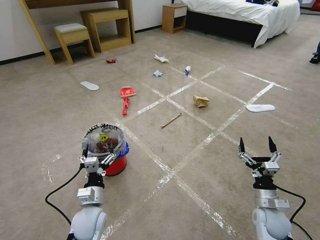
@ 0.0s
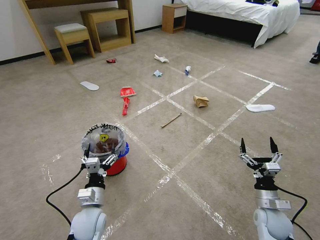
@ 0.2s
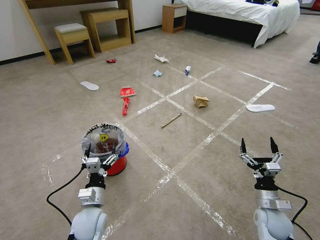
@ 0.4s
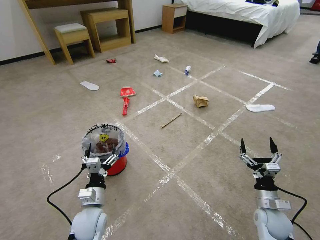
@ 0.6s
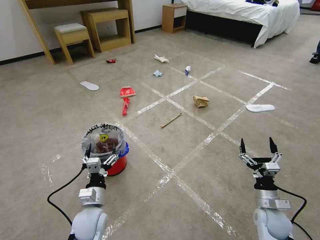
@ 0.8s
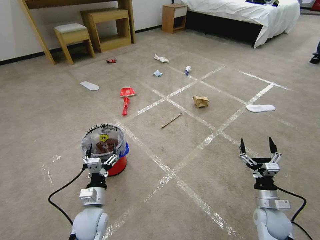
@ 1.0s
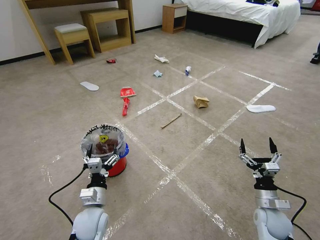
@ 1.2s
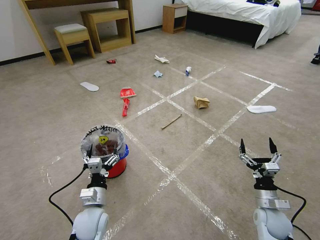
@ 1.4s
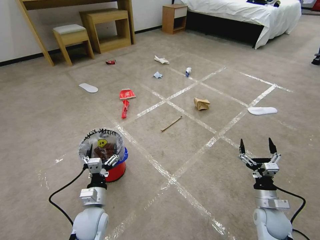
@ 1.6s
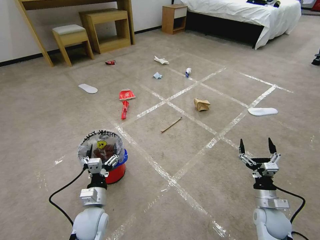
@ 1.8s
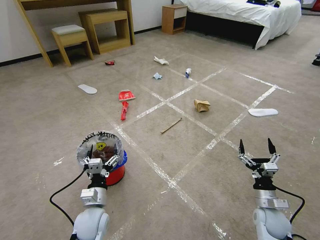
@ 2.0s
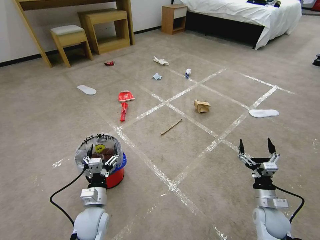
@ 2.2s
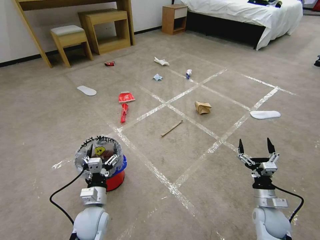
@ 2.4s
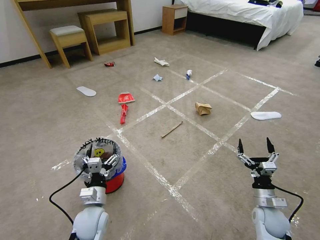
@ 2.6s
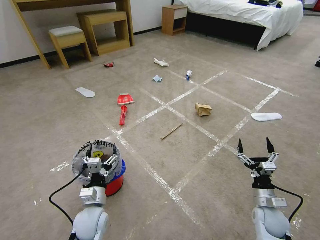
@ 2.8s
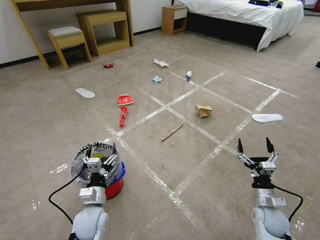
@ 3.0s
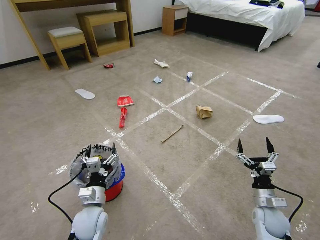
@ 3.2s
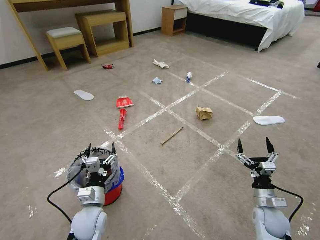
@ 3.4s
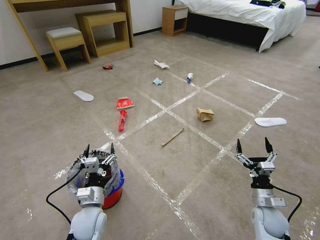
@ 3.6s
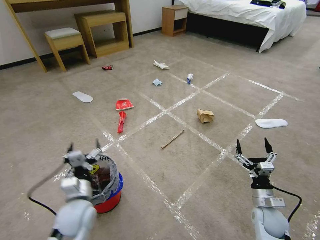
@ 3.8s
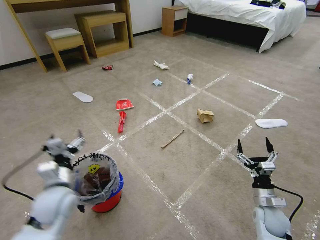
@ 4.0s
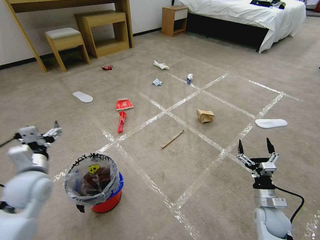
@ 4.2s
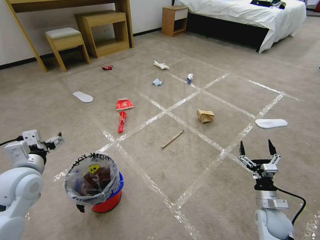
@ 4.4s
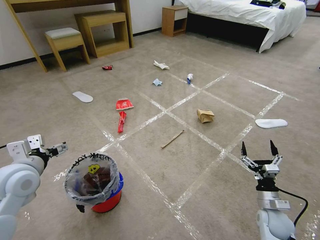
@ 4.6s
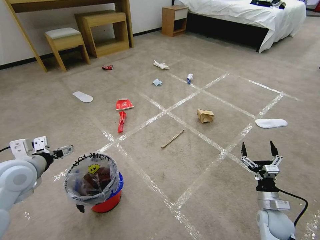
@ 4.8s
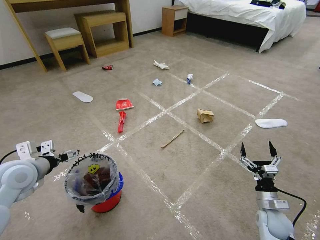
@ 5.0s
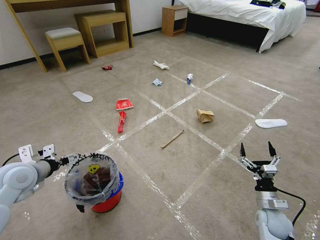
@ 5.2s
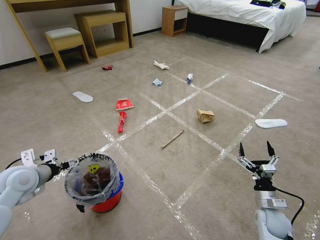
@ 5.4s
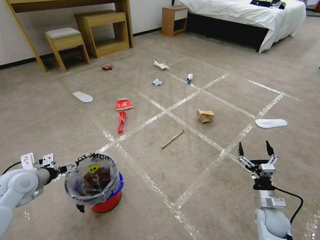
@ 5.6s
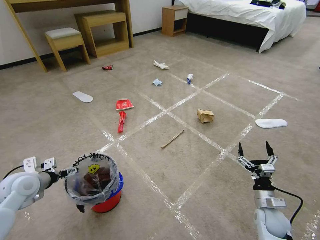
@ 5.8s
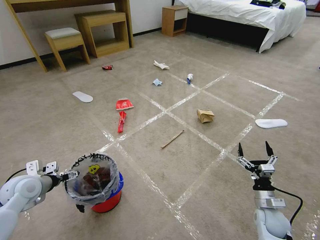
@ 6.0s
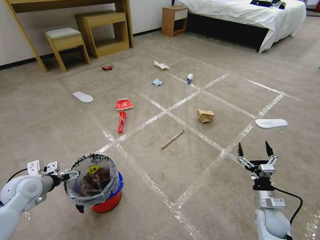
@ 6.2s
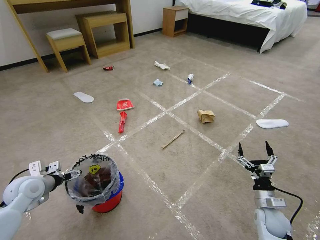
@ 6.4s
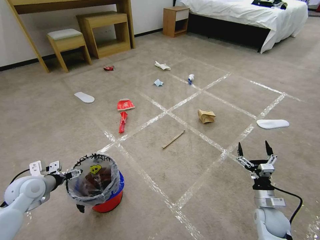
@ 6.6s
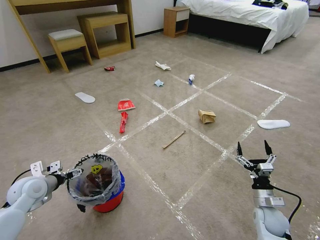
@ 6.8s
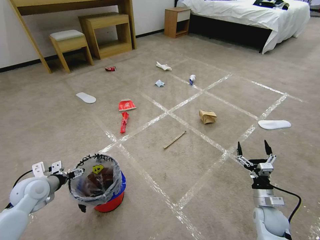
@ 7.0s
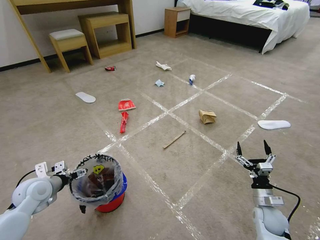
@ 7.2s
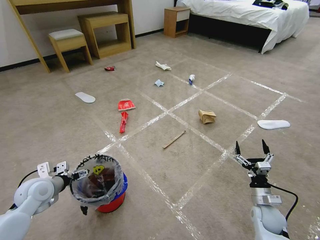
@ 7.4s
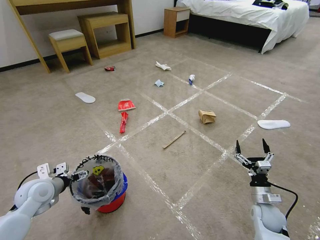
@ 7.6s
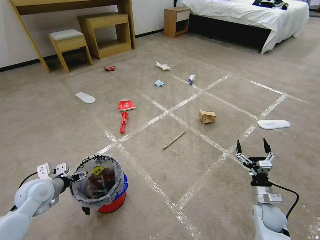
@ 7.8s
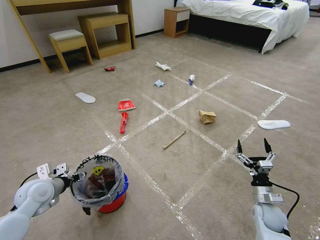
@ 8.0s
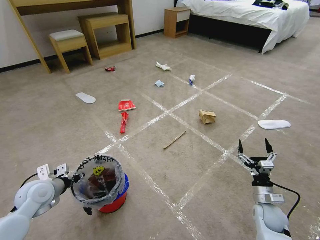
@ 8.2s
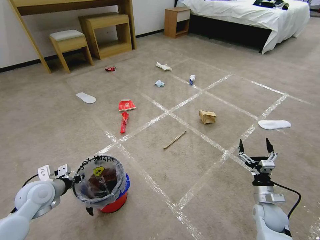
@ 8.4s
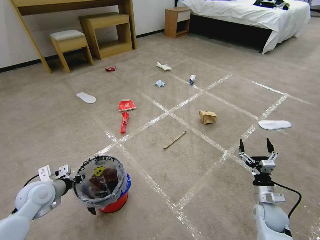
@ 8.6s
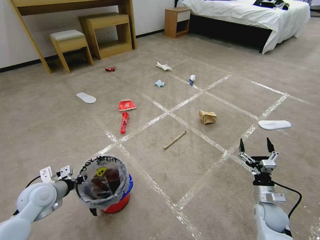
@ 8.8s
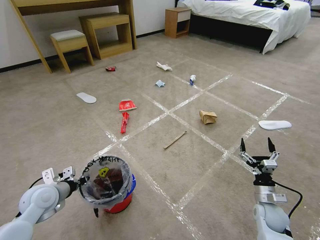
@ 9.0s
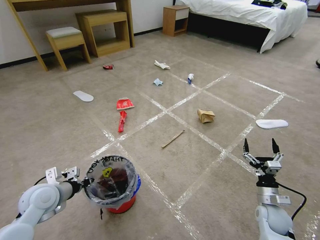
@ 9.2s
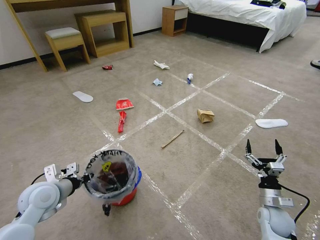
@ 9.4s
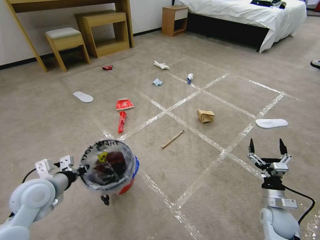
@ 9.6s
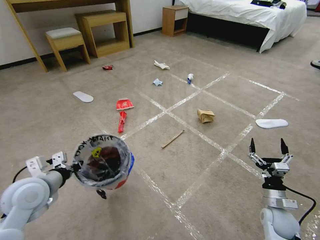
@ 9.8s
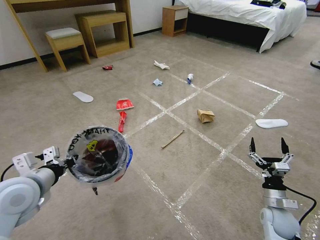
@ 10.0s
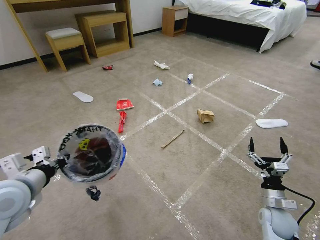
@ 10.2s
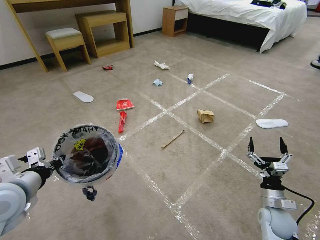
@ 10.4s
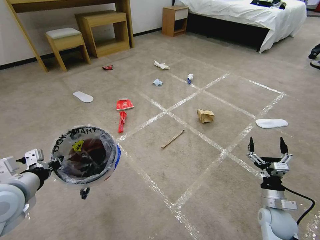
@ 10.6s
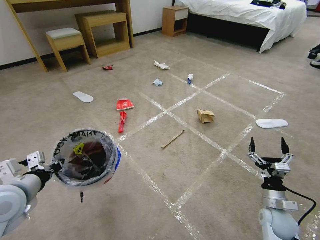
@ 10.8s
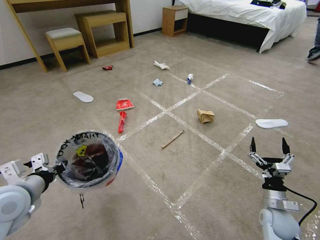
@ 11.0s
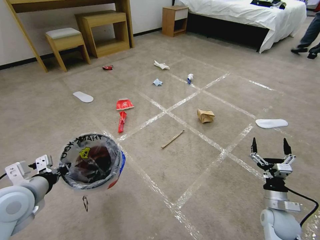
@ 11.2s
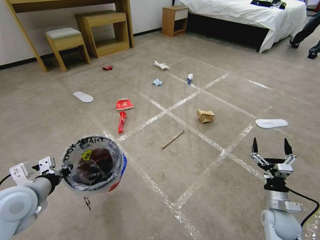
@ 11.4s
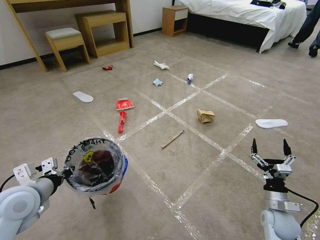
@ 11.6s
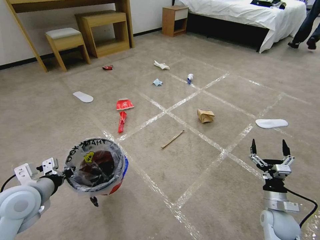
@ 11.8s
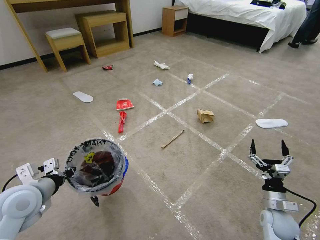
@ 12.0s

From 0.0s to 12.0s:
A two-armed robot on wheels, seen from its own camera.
Task of the whole recording: Pick up the trash bin and place the garbage on the floor into it.
From 1.6s to 3.0s: The two grippers keep their place.
From 3.0s to 4.4s: The left gripper heads upward and to the left, covering roughly 25 cm.
From 4.4s to 6.0s: The left gripper moves downward and to the left, some 10 cm.
From 6.0s to 7.6s: The grippers move only a little.
From 7.6s to 9.0s: The left gripper closes.
From 9.0s to 10.4s: The left gripper is displaced upward and backward by roughly 15 cm.
From 10.4s to 12.0s: The left gripper moves about 5 cm.

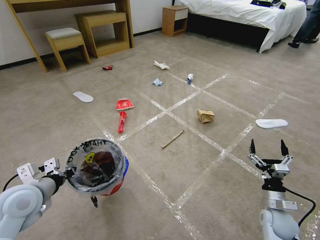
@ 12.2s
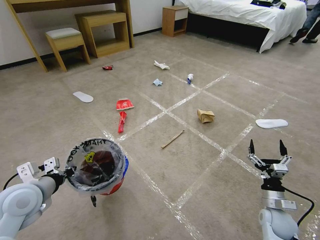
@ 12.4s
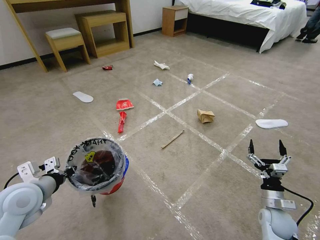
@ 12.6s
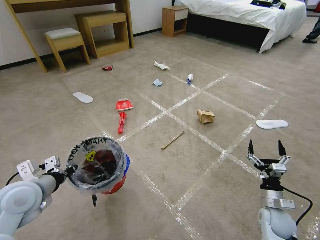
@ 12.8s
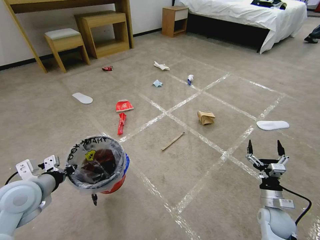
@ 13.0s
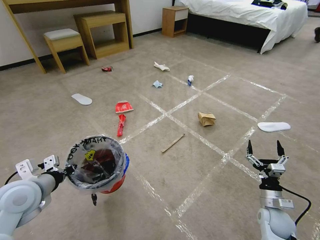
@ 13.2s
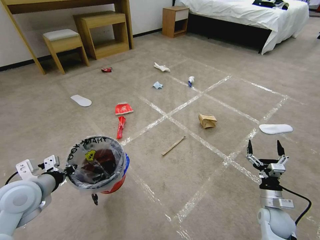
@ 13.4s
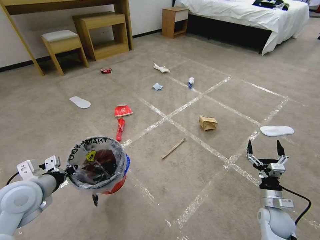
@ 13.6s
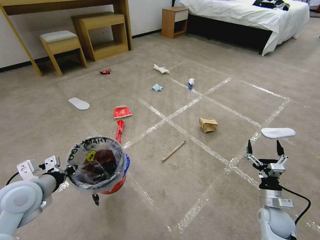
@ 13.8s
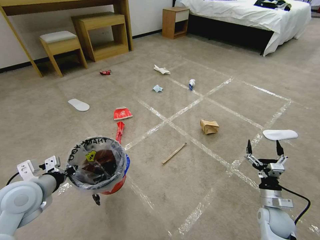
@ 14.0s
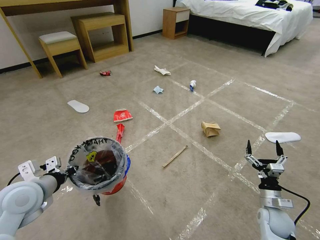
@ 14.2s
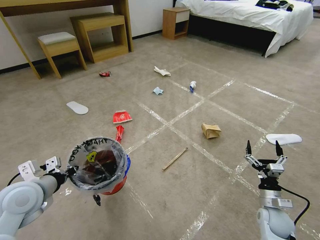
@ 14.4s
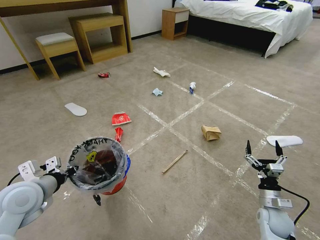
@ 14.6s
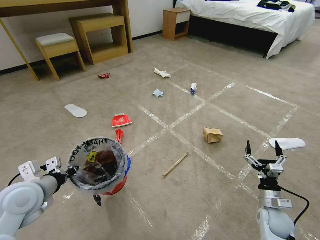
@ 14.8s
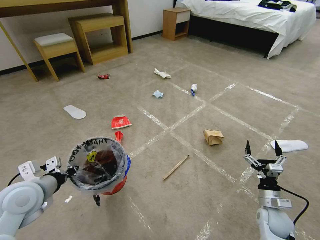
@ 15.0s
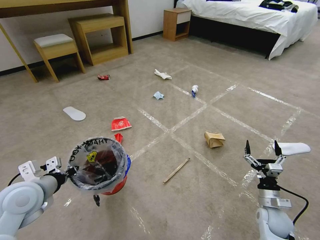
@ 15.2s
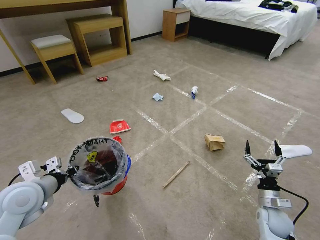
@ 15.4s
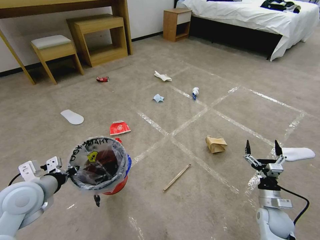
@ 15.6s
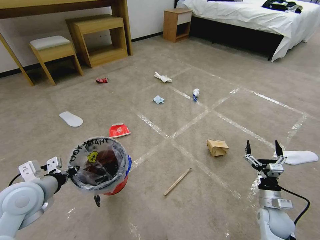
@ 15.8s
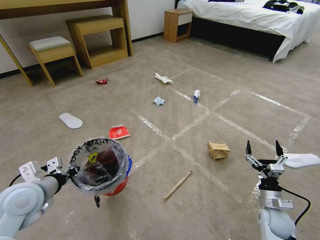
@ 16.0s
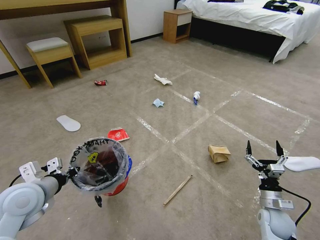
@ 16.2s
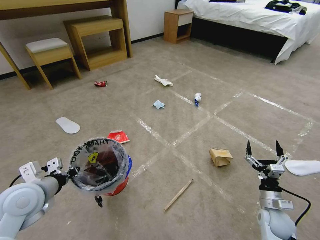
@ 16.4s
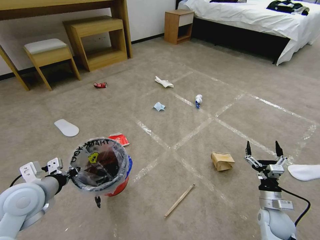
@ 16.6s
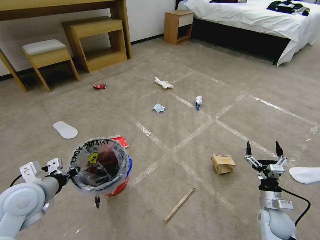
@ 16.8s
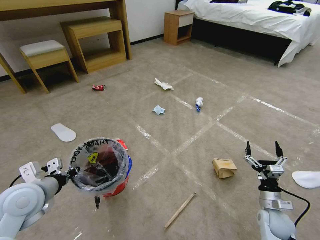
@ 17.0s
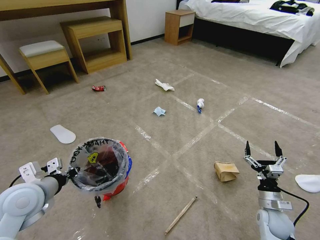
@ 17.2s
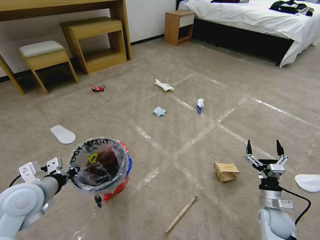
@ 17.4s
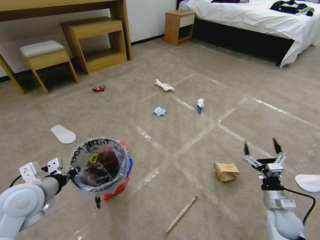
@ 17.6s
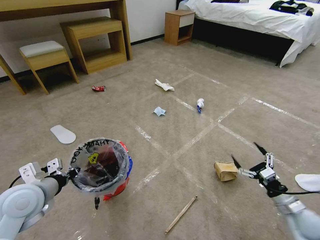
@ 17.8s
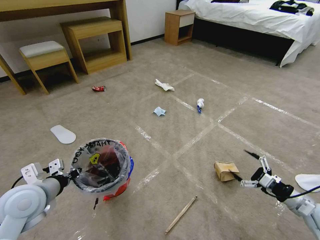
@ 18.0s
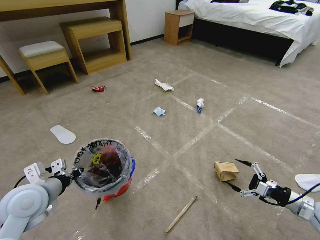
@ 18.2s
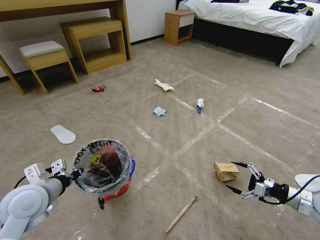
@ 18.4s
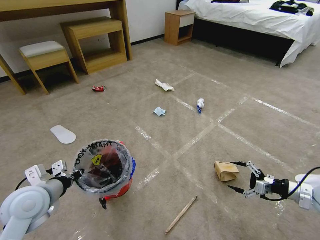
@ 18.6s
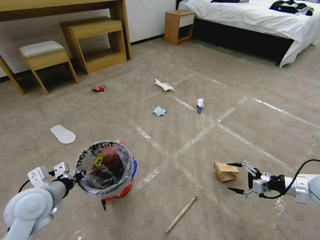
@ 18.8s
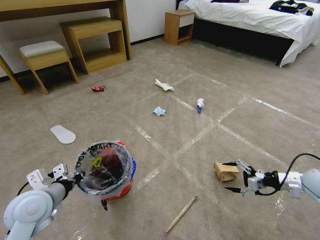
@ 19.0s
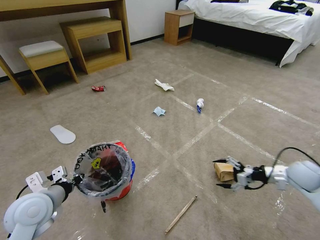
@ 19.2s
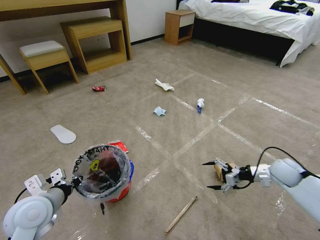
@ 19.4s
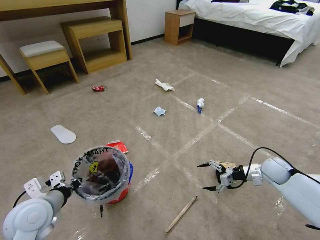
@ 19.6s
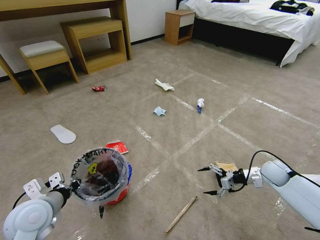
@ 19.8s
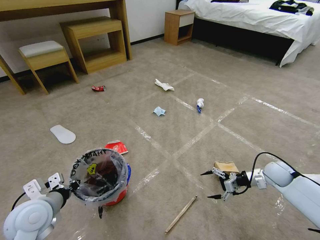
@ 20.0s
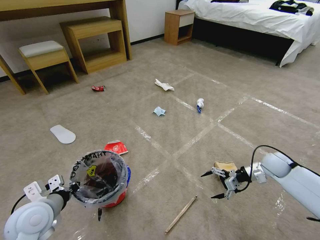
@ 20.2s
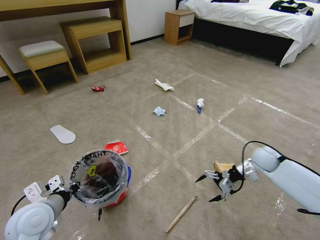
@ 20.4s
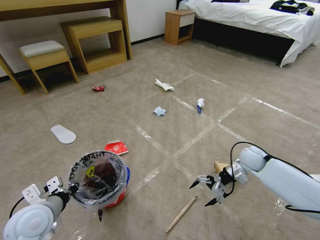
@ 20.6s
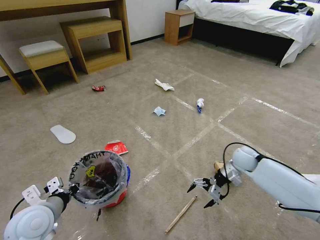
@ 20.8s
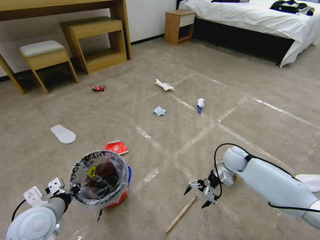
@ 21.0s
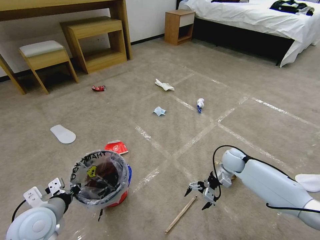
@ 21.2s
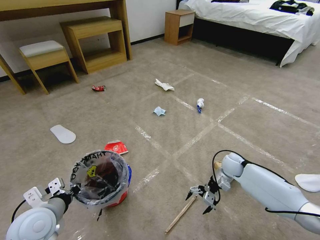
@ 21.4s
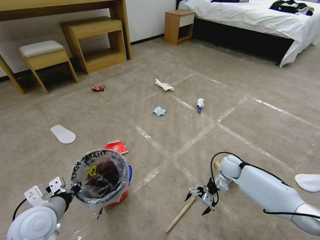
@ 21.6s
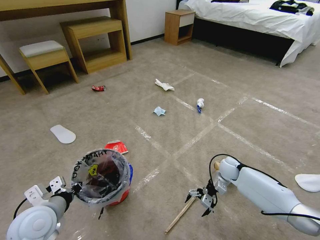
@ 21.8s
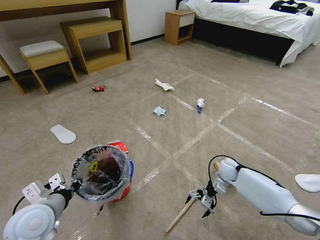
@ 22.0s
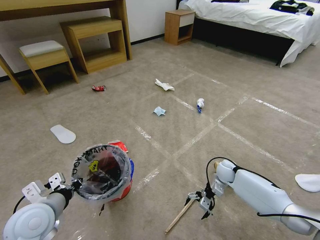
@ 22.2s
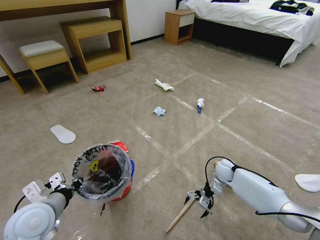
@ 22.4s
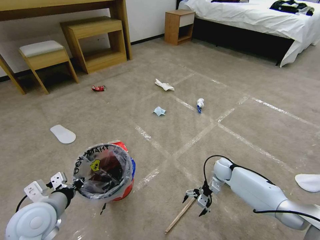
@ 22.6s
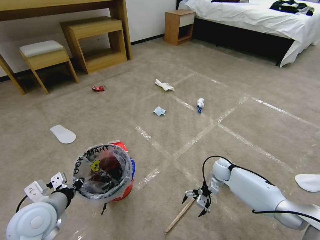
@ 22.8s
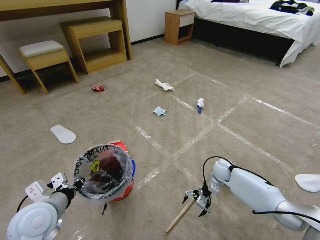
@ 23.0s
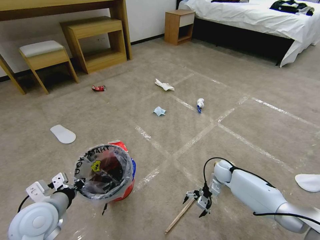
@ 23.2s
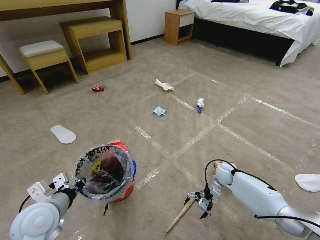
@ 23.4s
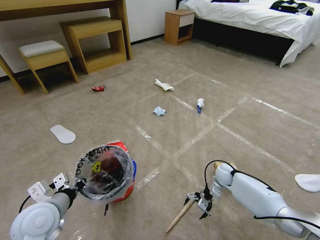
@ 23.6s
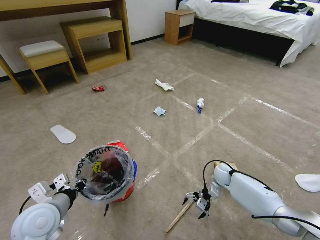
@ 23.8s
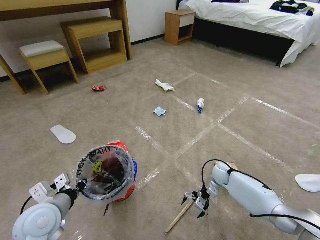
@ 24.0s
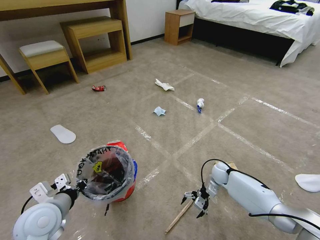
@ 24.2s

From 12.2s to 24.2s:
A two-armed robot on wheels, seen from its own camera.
Task of the whole recording: Pick up the trash bin and place the garbage on the floor into it.
From 12.2s to 13.8s: Both grippers stay about where they are.
From 13.8s to 15.2s: Neither gripper changes place.
From 16.6s to 18.2s: The right gripper heads to the right and upward, covering about 15 cm.
From 18.2s to 19.8s: The right gripper travels forward by about 15 cm.
From 19.8s to 21.2s: The right gripper is displaced to the left and forward by approximately 15 cm.
From 21.2s to 22.6s: The right gripper moves downward, approximately 5 cm.
From 22.6s to 24.2s: The grippers move only a little.
